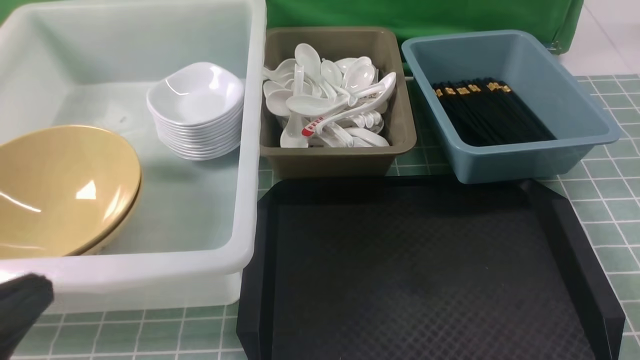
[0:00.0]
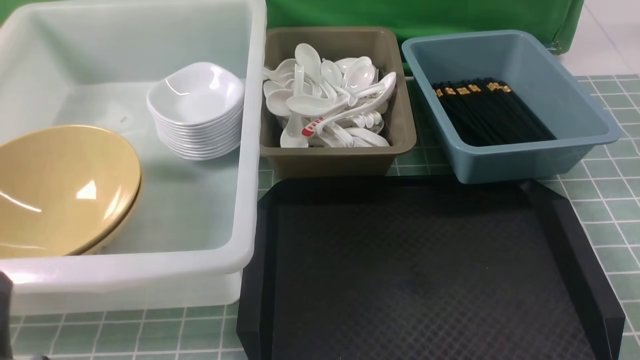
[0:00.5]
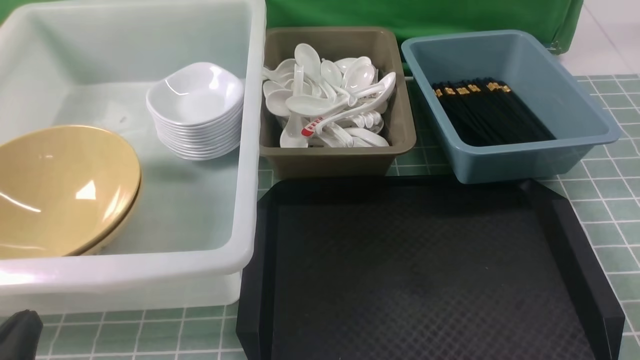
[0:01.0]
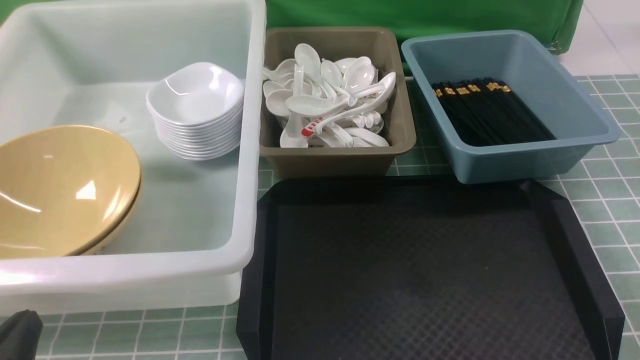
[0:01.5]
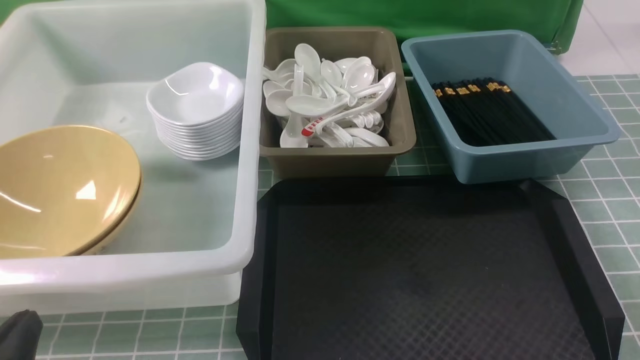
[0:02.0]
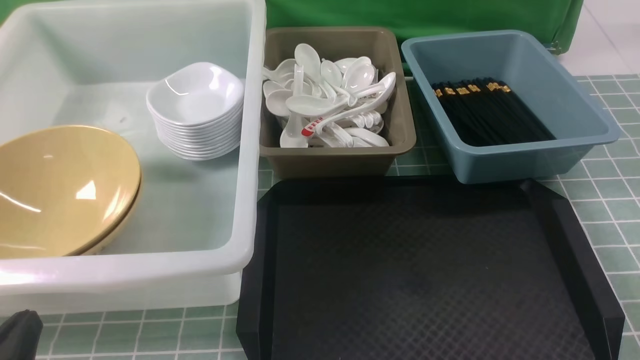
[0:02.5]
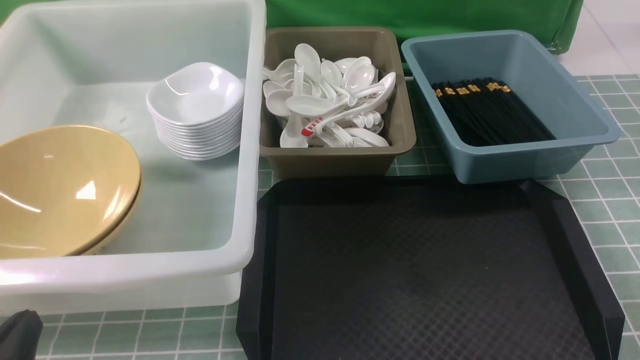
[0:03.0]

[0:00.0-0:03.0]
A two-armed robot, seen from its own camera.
Task of the whole recording: on blue table put chopsticks spoon bowls plates into blue grey white boxes.
0:00.0 to 0:01.5: The left gripper moves downward, approximately 10 cm.
0:01.5 to 0:03.0: Both grippers stay about where they are.
